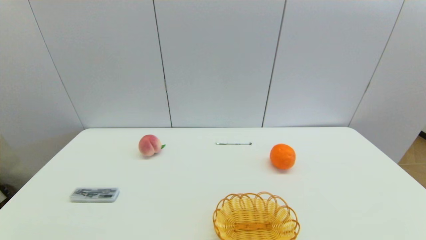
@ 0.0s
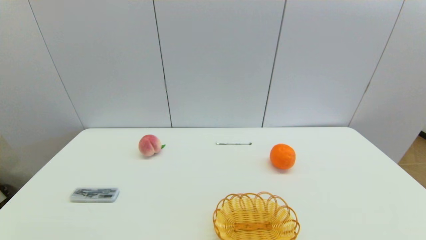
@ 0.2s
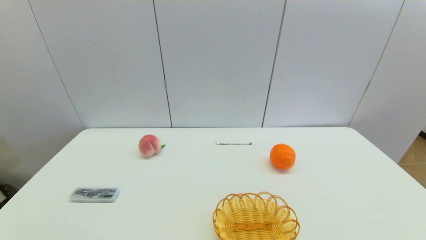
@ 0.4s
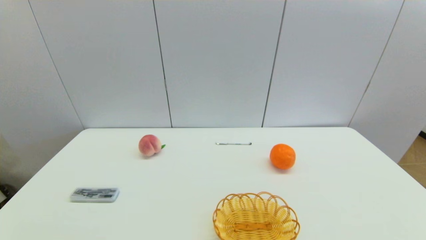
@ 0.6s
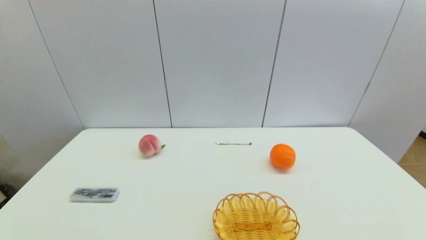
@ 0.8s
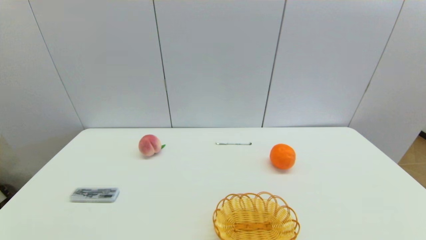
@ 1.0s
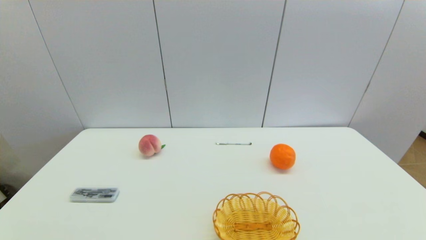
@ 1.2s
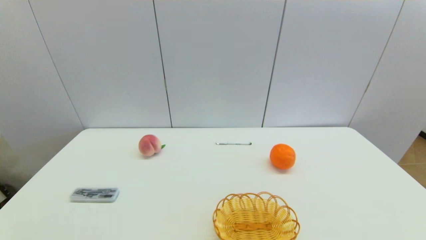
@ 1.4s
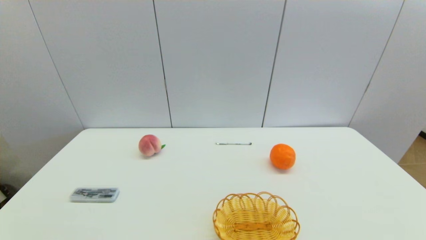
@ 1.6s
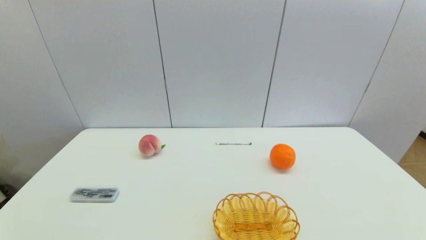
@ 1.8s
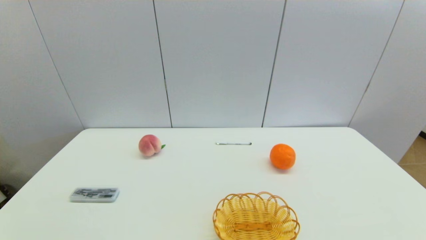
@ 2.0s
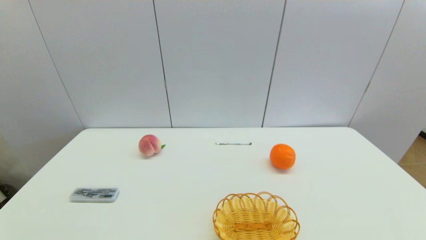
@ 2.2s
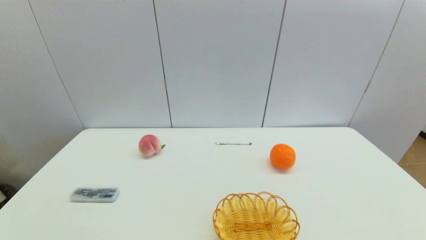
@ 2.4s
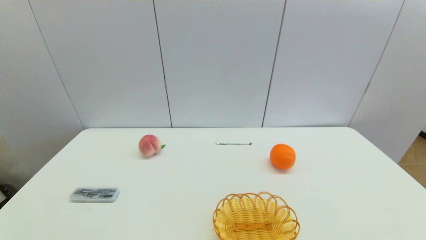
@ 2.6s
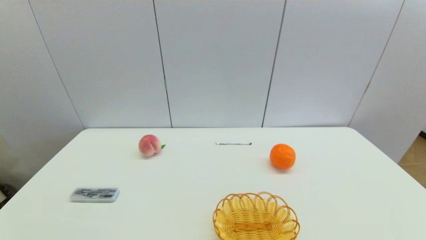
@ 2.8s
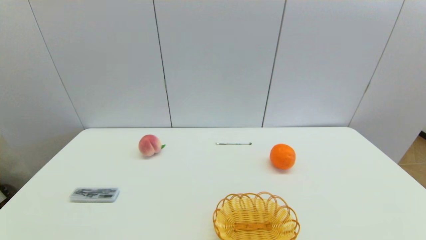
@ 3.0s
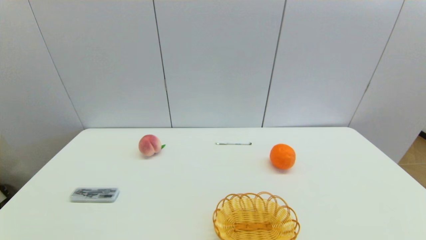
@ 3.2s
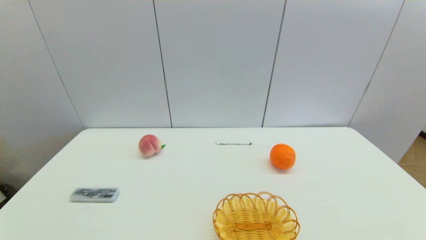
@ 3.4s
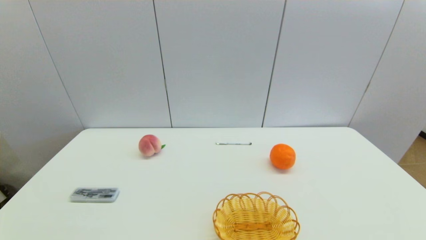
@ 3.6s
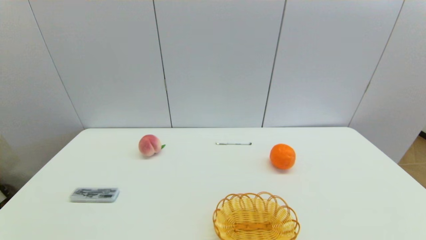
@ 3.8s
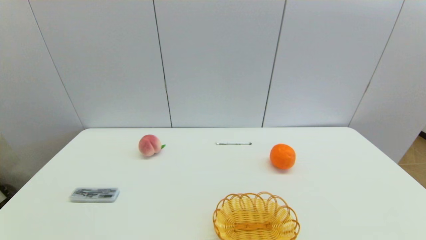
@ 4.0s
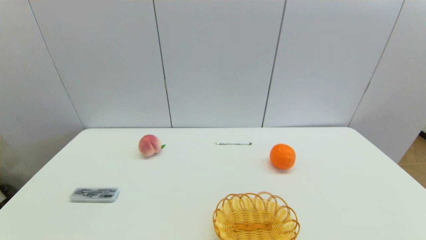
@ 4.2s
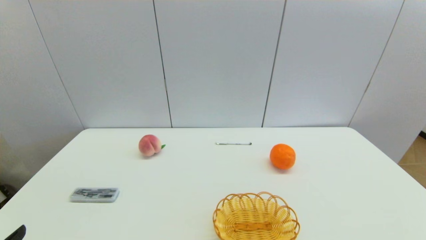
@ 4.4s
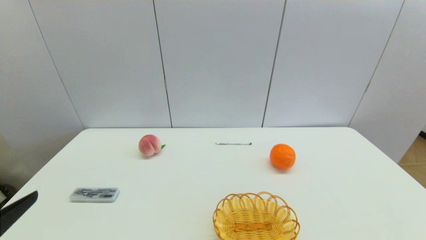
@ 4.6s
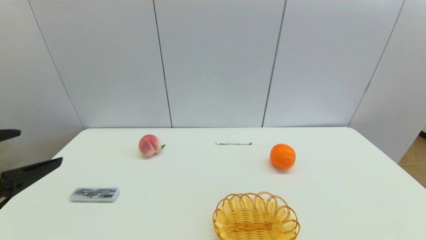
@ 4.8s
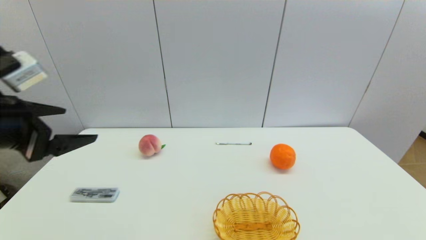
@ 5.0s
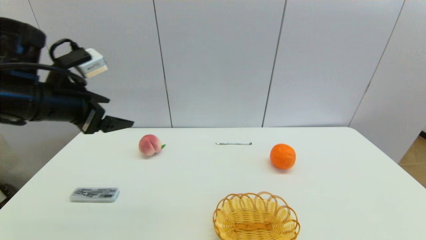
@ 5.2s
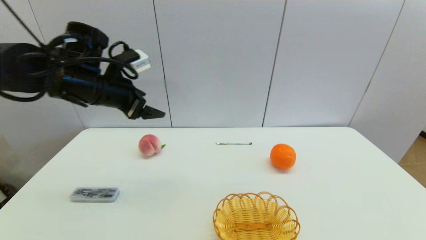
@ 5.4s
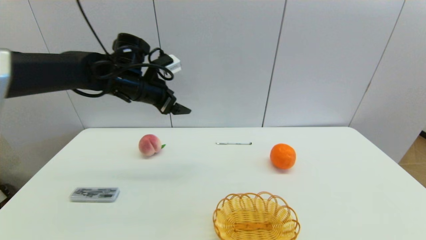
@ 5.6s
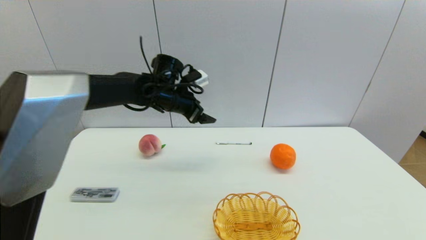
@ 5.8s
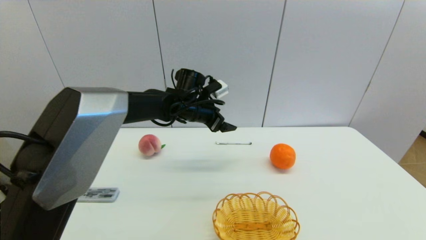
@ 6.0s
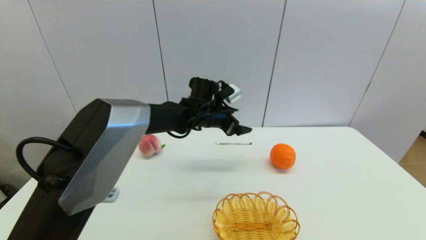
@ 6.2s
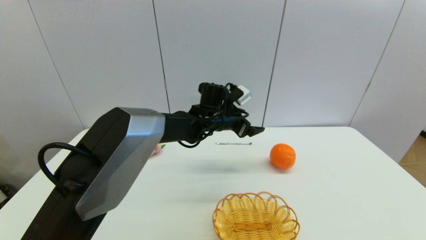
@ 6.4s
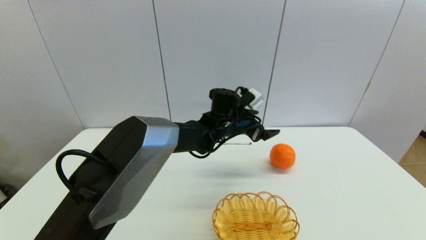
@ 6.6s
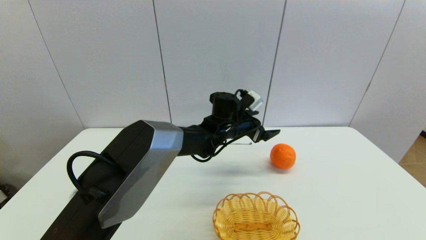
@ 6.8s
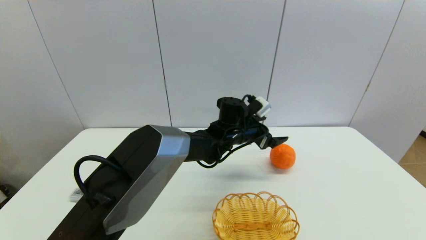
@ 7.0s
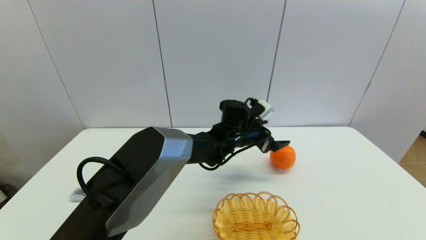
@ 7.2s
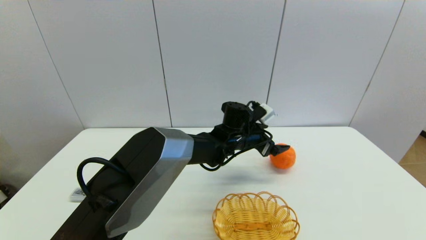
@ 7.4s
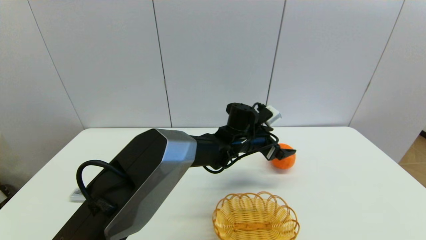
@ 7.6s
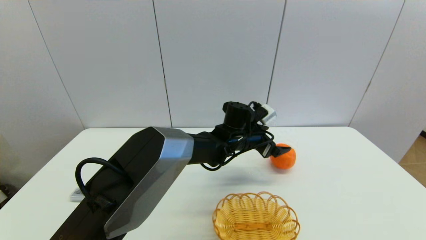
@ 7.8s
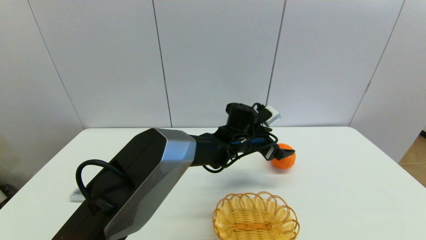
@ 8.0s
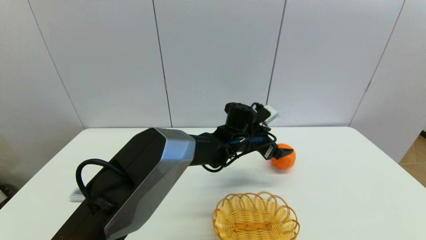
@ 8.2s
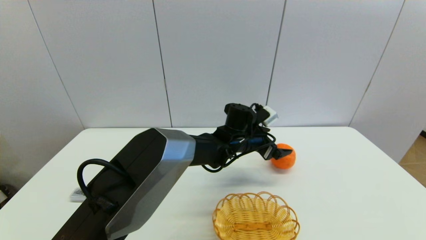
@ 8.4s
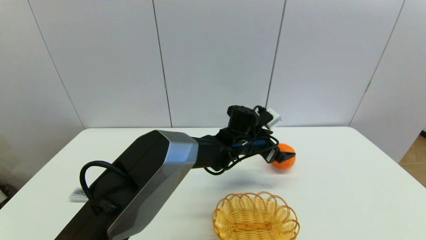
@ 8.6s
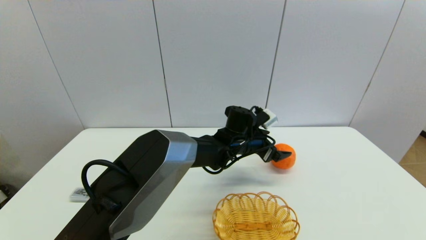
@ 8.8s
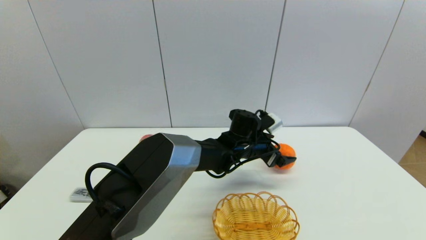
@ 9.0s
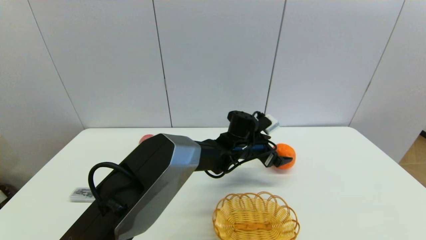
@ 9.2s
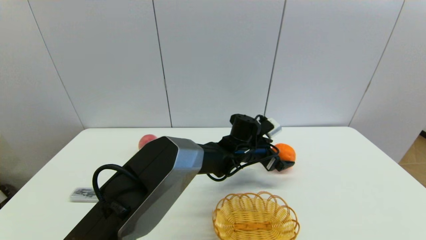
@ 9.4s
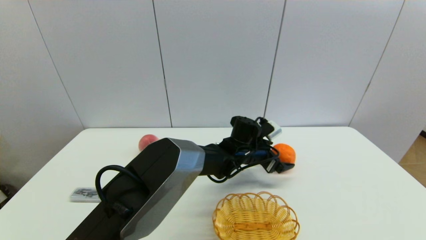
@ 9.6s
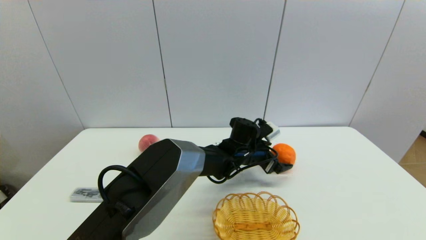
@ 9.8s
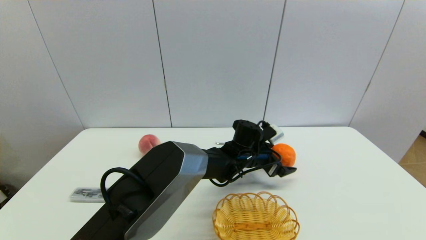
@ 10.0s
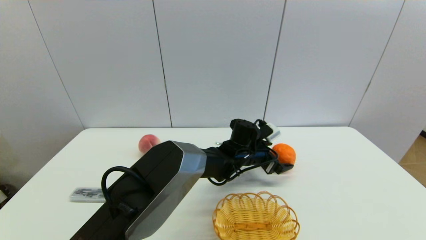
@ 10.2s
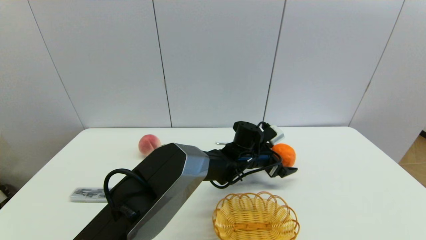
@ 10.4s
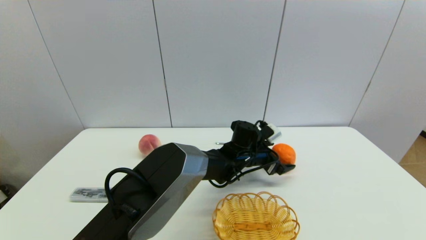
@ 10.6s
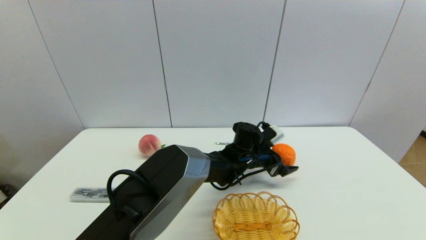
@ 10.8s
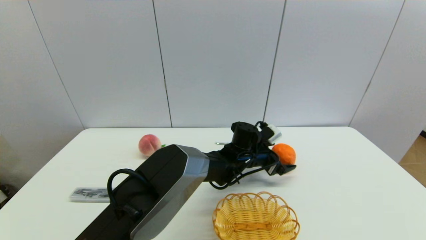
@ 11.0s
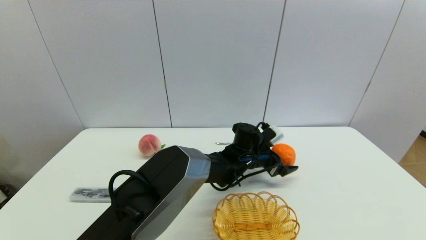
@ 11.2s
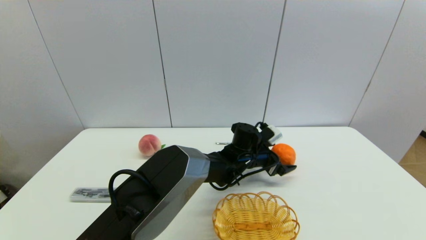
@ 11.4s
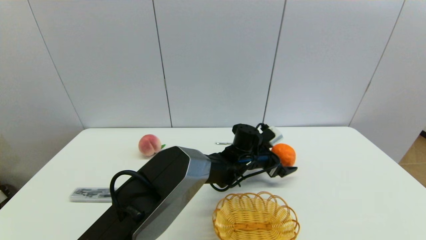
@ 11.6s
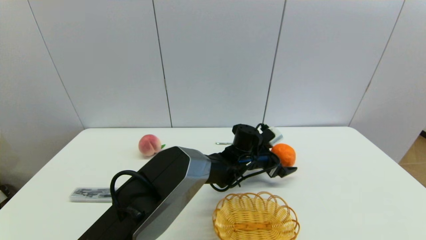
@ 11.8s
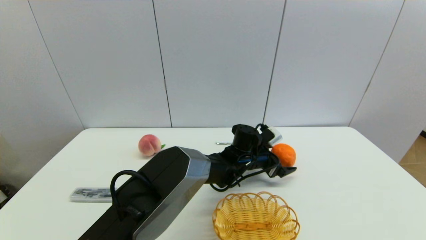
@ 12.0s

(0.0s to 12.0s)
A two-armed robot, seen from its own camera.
0.0s - 3.0s: Both grippers stay about where they are.
4.4s - 6.0s: The left gripper heads forward and to the right, covering some 50 cm.
6.0s - 7.6s: The left gripper travels to the right and downward by roughly 15 cm.
7.6s - 10.4s: There are only small adjustments of the grippers.
10.4s - 12.0s: The two grippers keep their place.

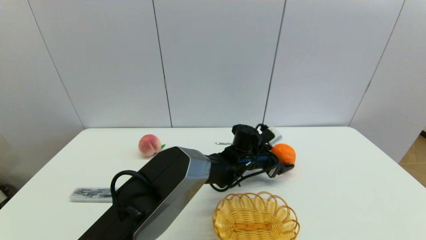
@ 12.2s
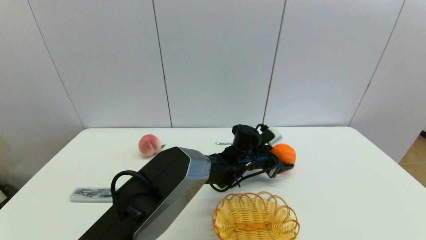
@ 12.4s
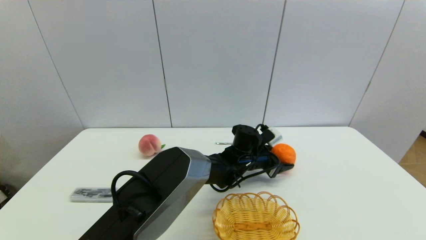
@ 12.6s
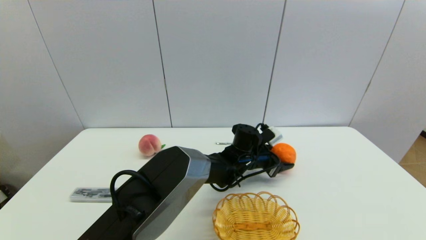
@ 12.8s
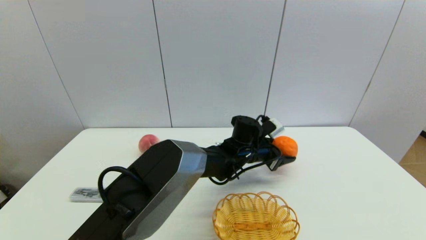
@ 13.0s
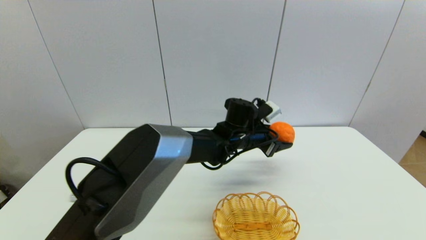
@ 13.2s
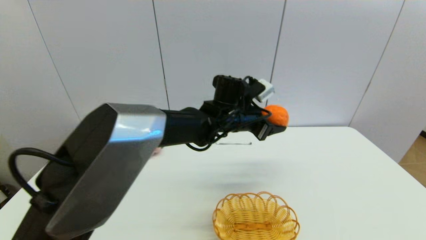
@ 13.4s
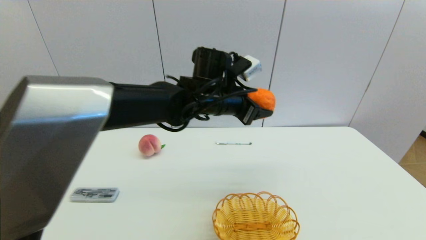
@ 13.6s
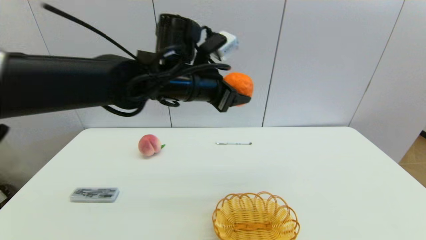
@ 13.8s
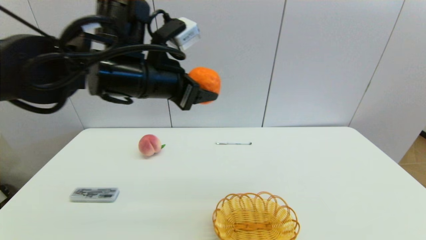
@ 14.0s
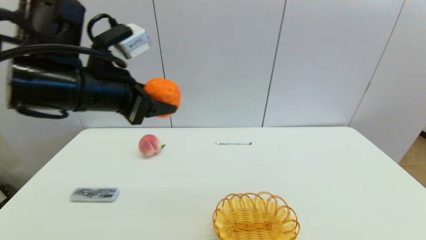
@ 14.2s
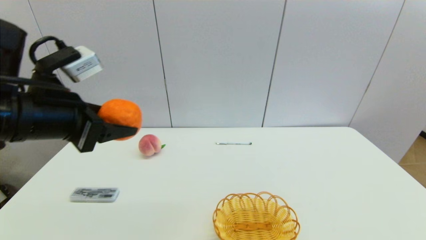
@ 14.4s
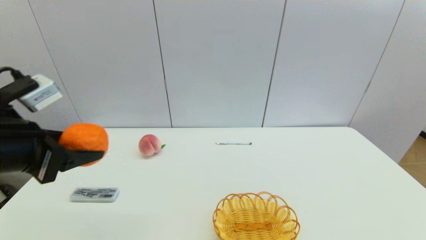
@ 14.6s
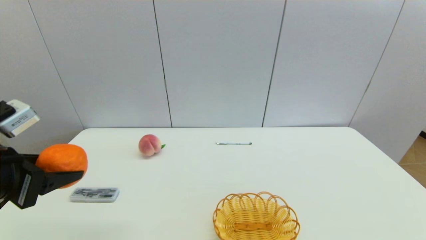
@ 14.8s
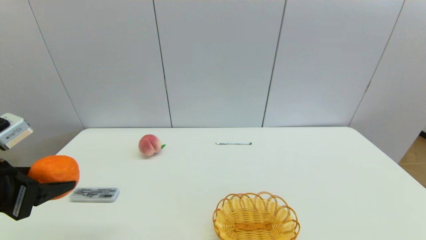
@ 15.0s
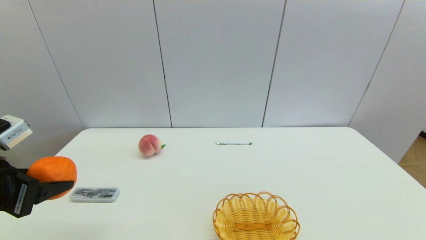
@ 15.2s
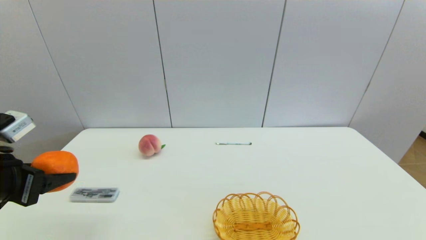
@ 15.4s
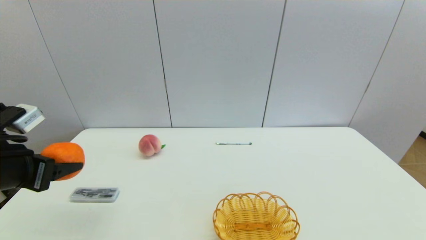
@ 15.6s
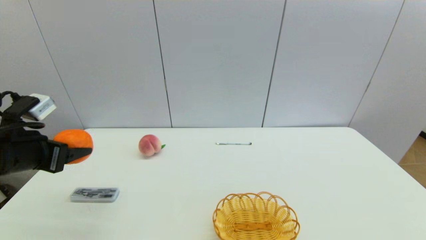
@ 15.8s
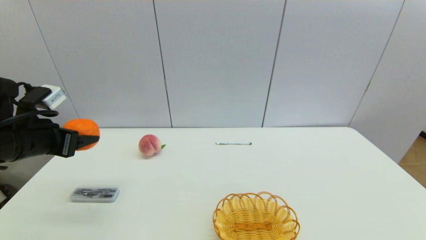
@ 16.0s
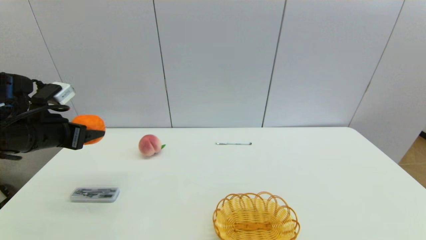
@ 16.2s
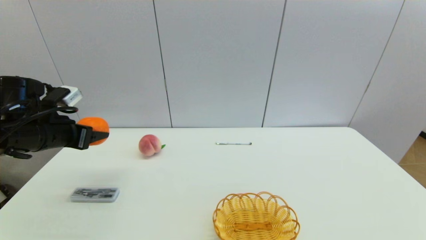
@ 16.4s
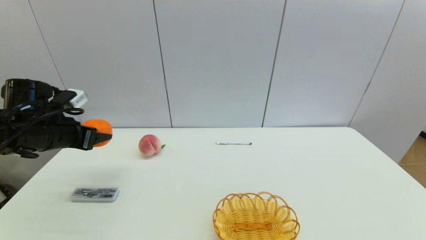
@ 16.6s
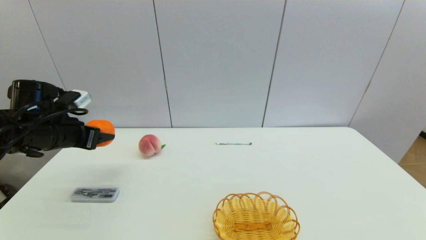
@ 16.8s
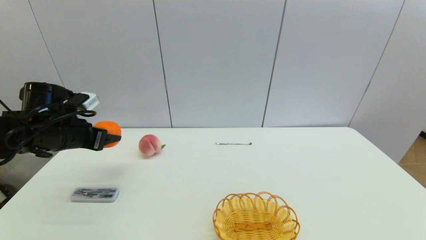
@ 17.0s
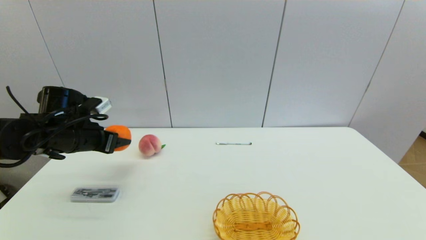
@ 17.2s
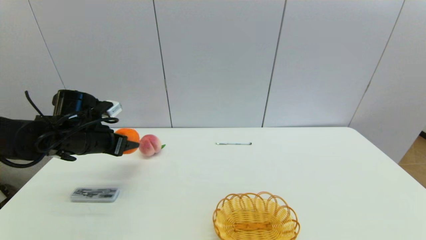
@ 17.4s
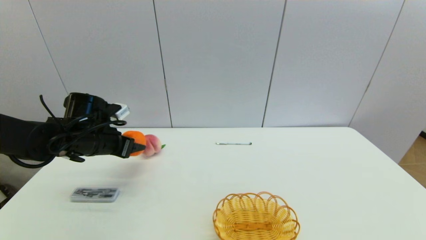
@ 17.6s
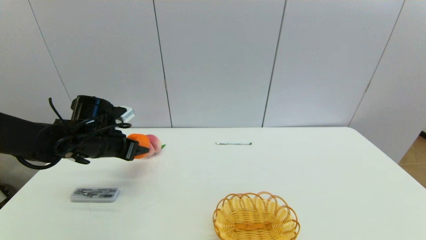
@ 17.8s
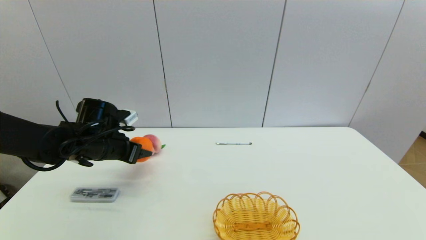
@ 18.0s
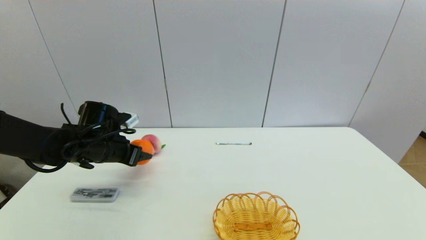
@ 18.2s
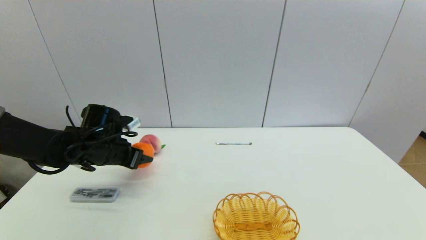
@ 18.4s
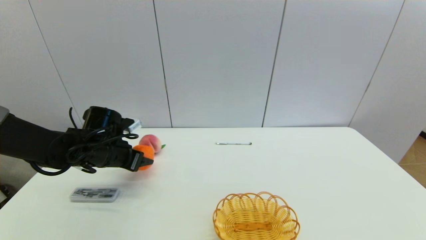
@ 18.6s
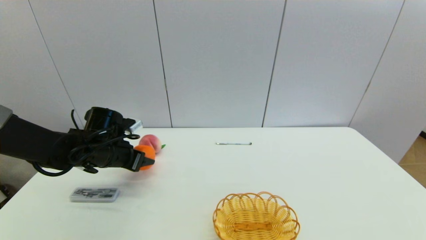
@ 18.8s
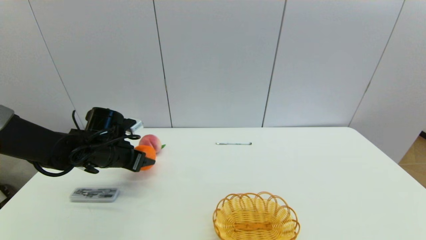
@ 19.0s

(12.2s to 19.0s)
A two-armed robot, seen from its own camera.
12.2s - 13.6s: The left gripper goes roughly 20 cm upward and to the left.
13.6s - 15.0s: The left gripper shifts roughly 35 cm to the left and backward.
15.0s - 16.2s: The left gripper travels forward by approximately 15 cm.
16.2s - 17.6s: The left gripper shifts approximately 10 cm downward, forward and to the right.
17.6s - 19.0s: The grippers move only a little.
